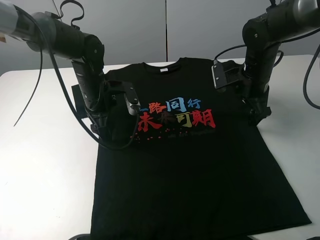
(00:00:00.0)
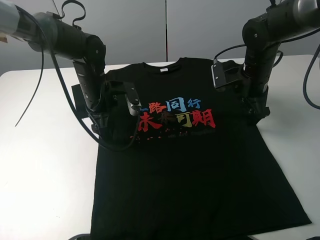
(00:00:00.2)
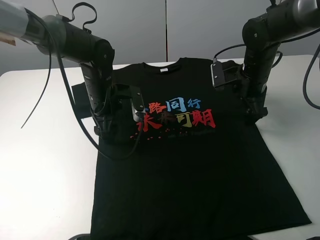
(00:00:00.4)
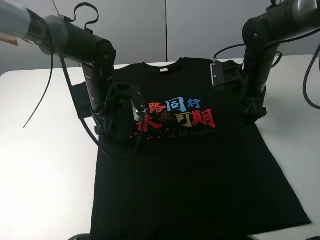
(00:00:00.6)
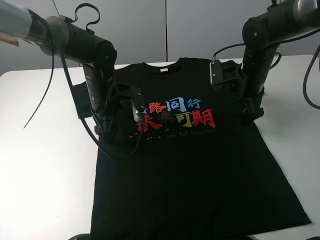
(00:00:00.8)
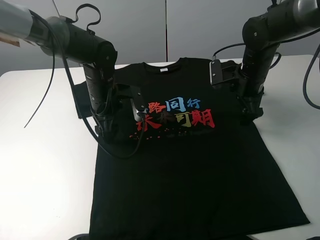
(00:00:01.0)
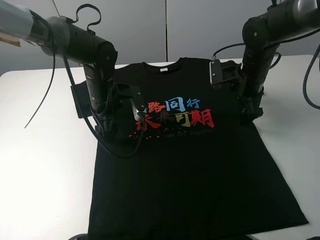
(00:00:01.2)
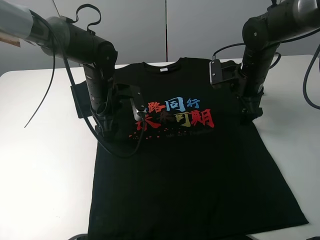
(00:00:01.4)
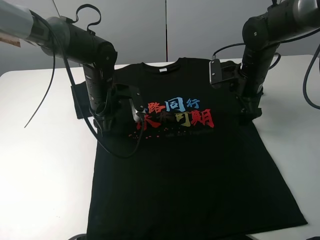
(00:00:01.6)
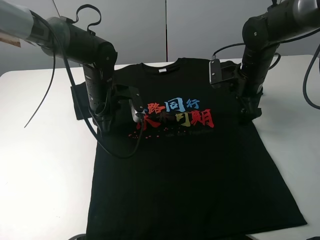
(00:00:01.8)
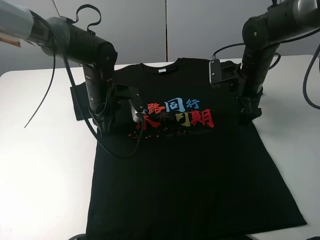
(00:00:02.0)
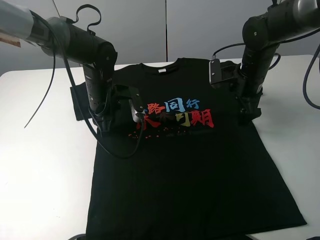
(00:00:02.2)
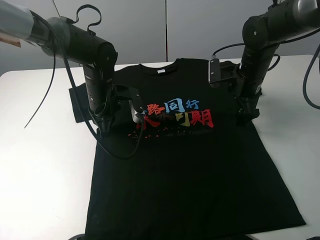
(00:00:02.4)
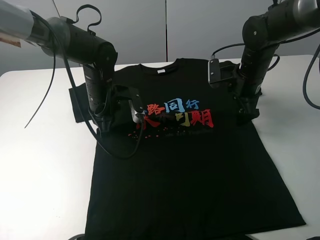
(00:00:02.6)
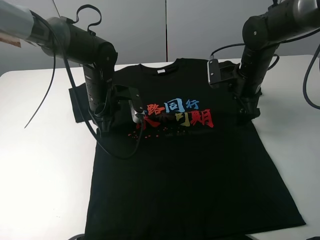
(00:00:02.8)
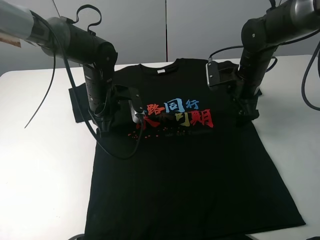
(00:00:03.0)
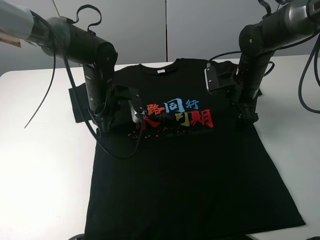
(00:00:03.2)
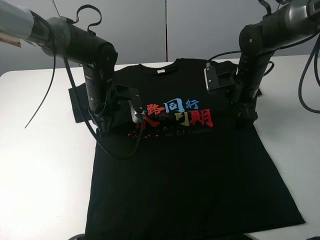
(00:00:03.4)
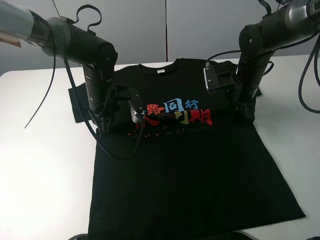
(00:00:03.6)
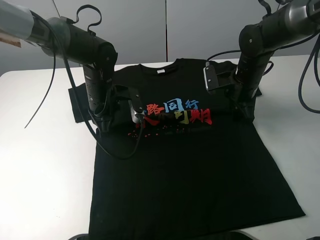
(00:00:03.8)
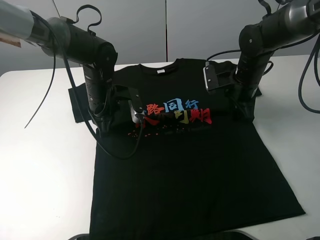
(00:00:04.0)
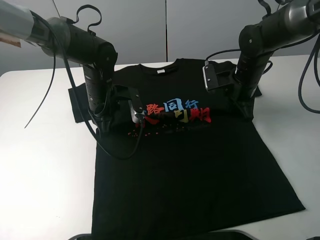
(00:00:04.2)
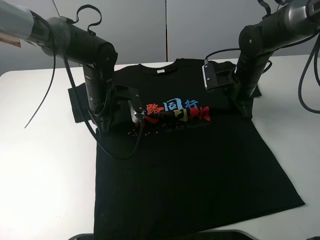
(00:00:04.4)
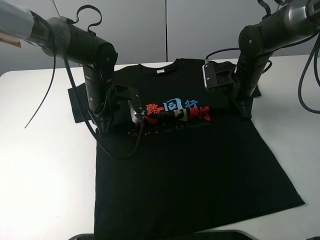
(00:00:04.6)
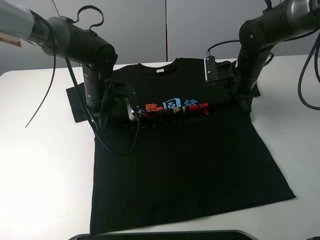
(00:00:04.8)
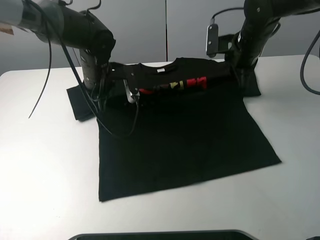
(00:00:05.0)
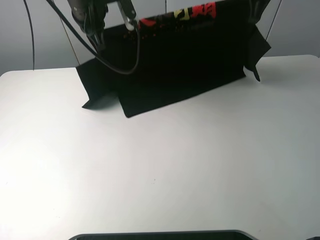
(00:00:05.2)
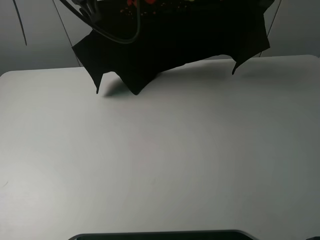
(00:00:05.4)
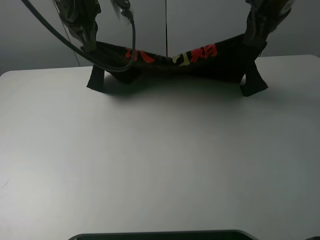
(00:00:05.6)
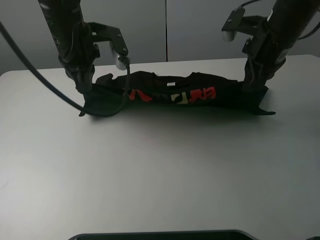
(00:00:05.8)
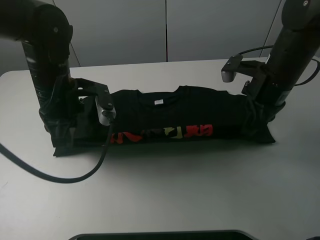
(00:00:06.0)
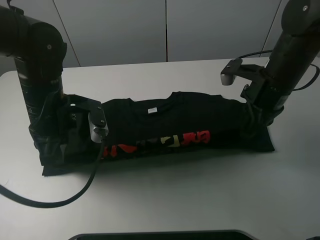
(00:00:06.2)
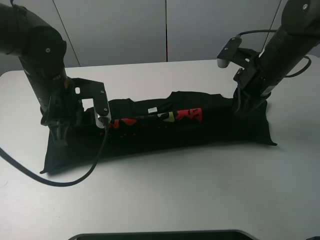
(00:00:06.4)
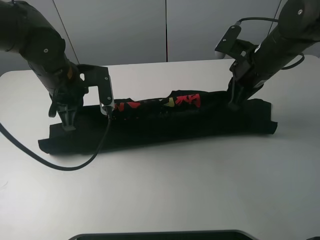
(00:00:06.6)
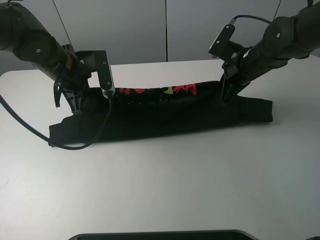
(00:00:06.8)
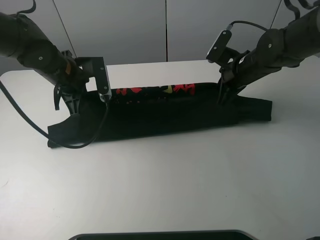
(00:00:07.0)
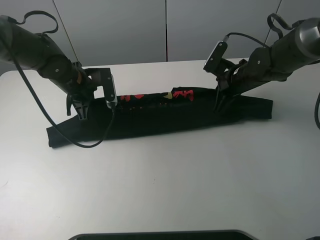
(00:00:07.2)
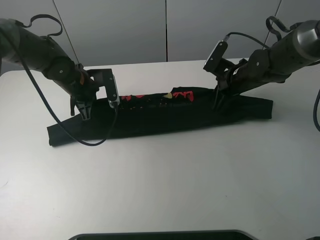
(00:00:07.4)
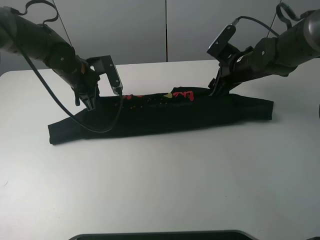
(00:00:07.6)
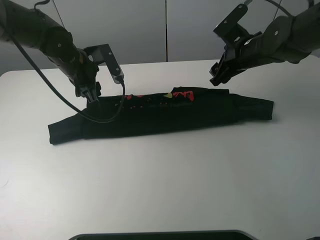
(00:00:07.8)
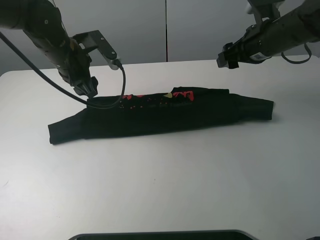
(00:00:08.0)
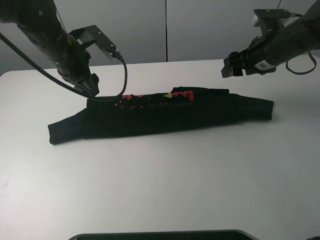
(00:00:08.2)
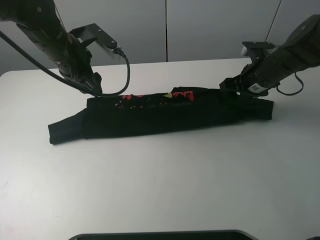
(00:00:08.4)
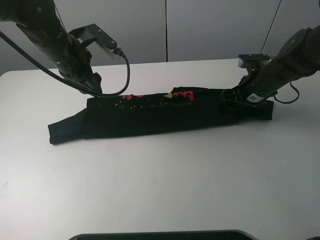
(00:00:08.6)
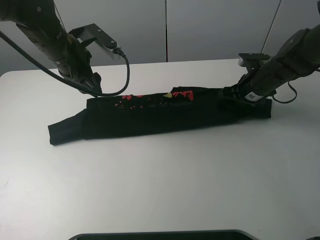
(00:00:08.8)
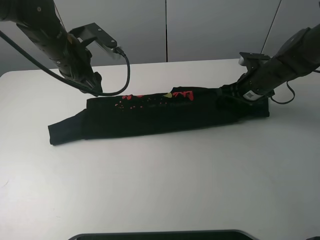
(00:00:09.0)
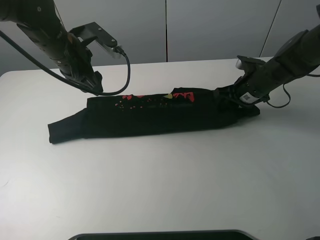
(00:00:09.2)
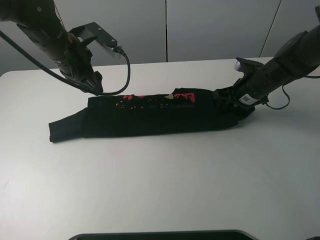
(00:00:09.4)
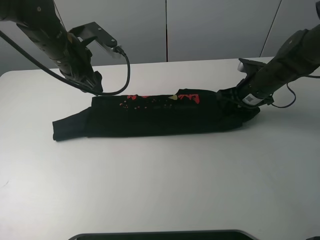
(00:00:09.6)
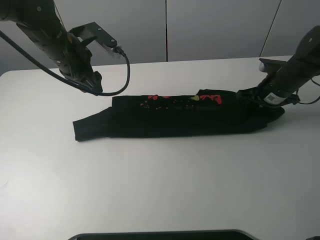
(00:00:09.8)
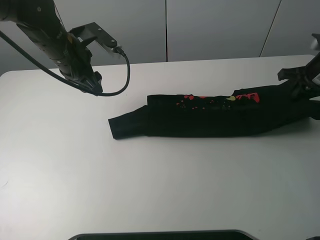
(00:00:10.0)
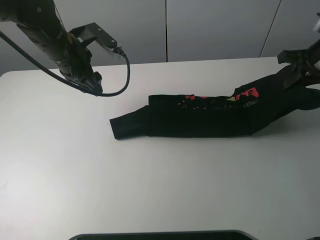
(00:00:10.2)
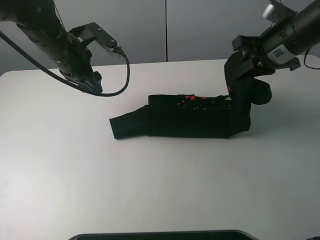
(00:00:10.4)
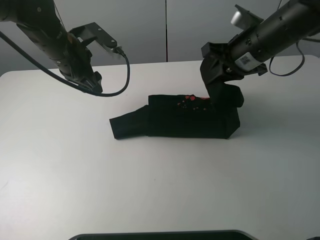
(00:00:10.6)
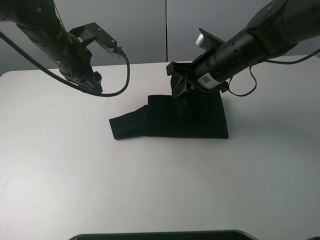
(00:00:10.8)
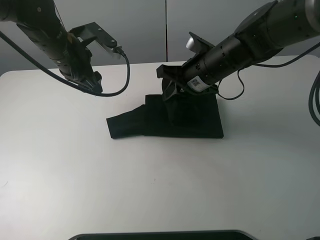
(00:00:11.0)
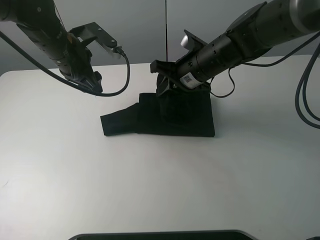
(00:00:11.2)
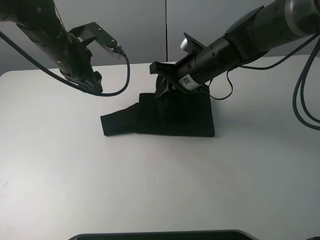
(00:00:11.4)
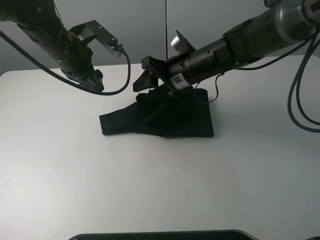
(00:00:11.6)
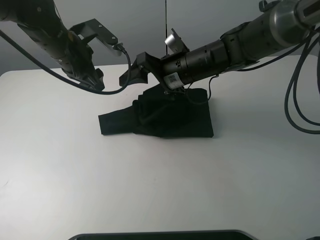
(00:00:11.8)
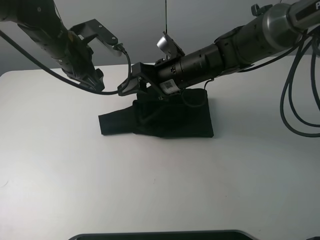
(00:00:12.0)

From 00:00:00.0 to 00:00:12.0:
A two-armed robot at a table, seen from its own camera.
Task of the whole recording: fold the clothes on the table.
Step, from 00:00:00.0 to 00:00:02.0: Lift the black T-shirt with the left gripper.
Step, from 00:00:02.2 to 00:00:07.8: Fold the black T-shirt downward with the left gripper.
Step, from 00:00:08.0 to 00:00:09.2: Grasp the black T-shirt with the right gripper.
From 00:00:00.0 to 00:00:01.6: The left gripper closes.
From 00:00:01.6 to 00:00:03.0: The left gripper closes up.
From 00:00:03.0 to 00:00:04.4: The right gripper closes up.
From 00:00:04.4 to 00:00:06.0: The left gripper heads upward, backward and to the left, covering roughly 15 cm, while the right gripper travels backward by approximately 10 cm, and reaches roughly 25 cm upward, then returns.
From 00:00:06.0 to 00:00:07.6: The right gripper heads forward and downward, covering about 10 cm, and opens. Meanwhile the left gripper moves forward, some 10 cm, and opens its fingers.
From 00:00:07.6 to 00:00:09.0: The left gripper goes about 5 cm upward, and opens its fingers. Meanwhile the right gripper ends up about 5 cm from where it was.
From 00:00:09.0 to 00:00:10.4: The right gripper moves upward, about 15 cm, and closes.
From 00:00:10.4 to 00:00:12.0: The right gripper heads to the left and downward, covering roughly 20 cm, and opens up.

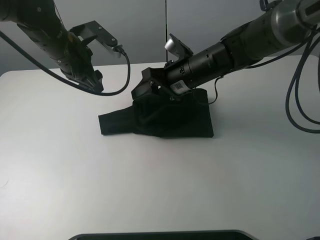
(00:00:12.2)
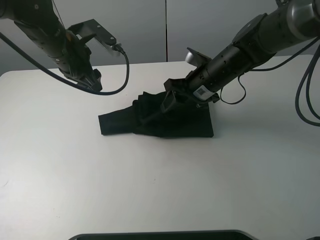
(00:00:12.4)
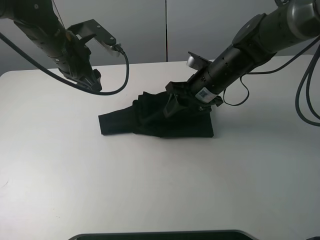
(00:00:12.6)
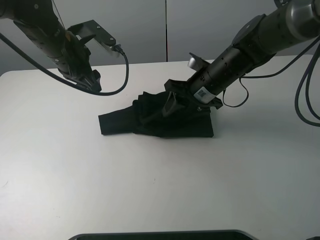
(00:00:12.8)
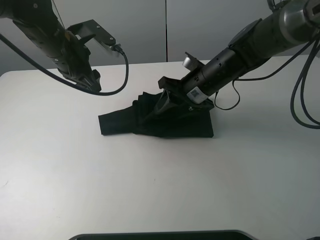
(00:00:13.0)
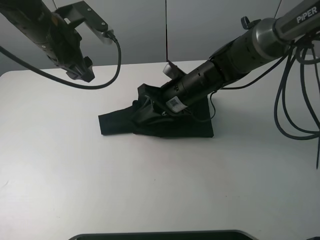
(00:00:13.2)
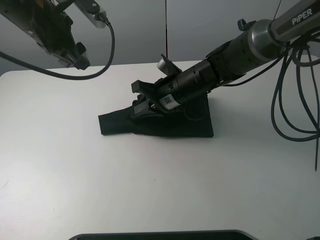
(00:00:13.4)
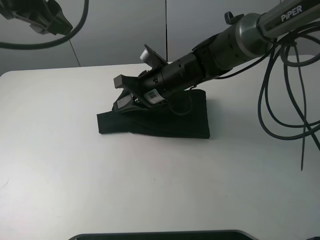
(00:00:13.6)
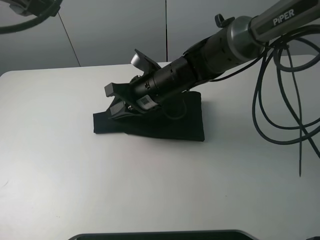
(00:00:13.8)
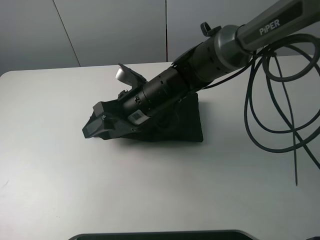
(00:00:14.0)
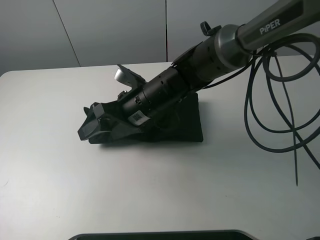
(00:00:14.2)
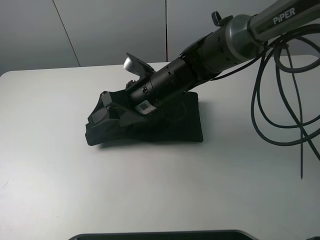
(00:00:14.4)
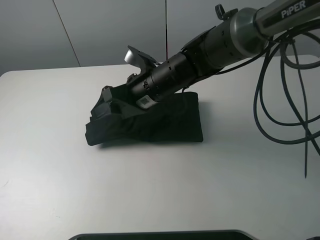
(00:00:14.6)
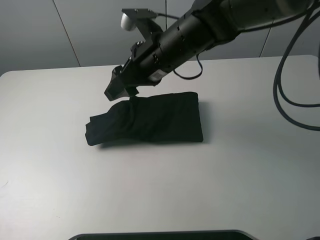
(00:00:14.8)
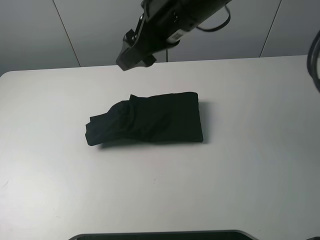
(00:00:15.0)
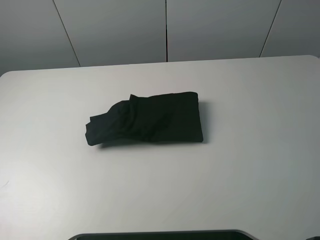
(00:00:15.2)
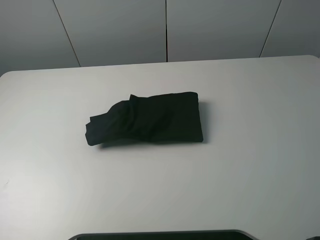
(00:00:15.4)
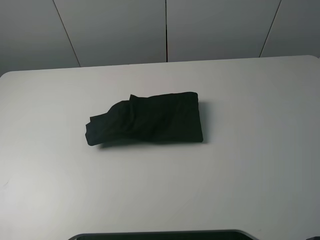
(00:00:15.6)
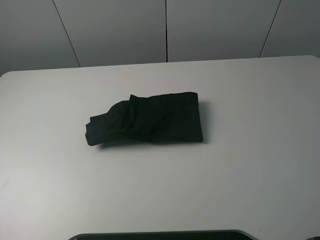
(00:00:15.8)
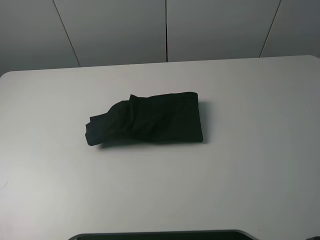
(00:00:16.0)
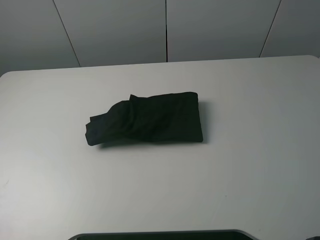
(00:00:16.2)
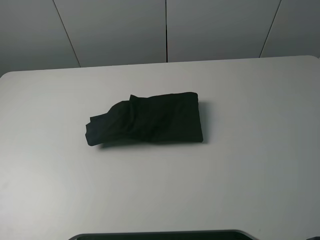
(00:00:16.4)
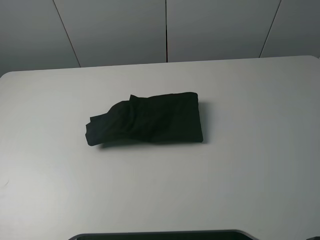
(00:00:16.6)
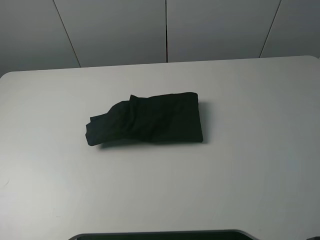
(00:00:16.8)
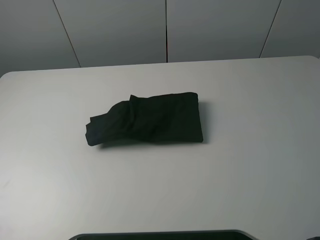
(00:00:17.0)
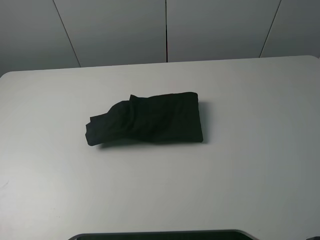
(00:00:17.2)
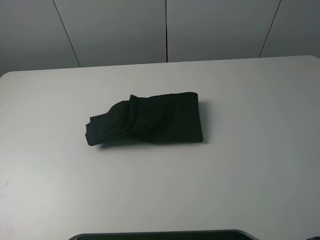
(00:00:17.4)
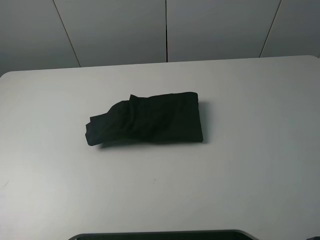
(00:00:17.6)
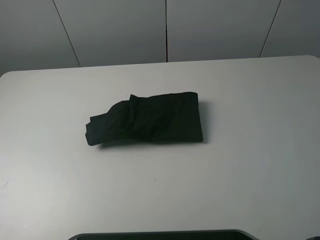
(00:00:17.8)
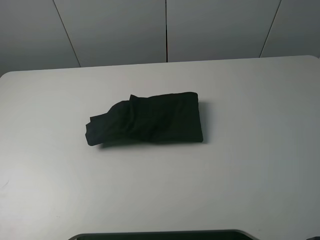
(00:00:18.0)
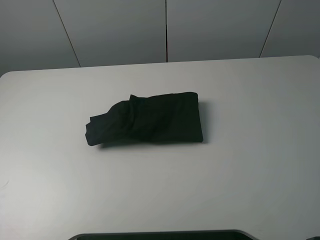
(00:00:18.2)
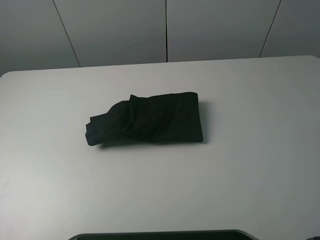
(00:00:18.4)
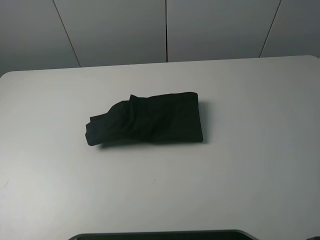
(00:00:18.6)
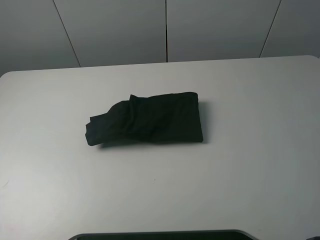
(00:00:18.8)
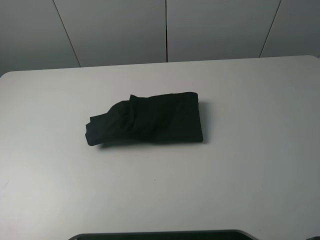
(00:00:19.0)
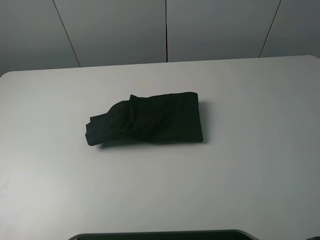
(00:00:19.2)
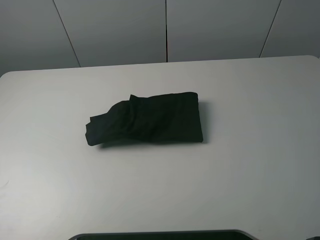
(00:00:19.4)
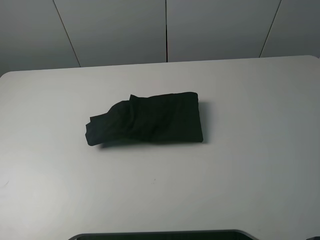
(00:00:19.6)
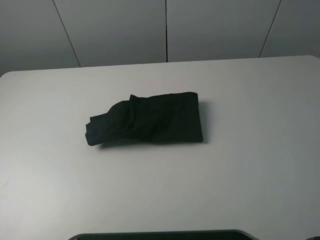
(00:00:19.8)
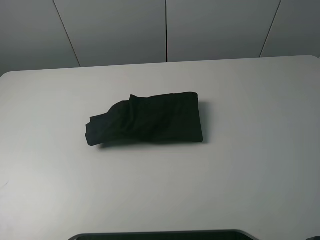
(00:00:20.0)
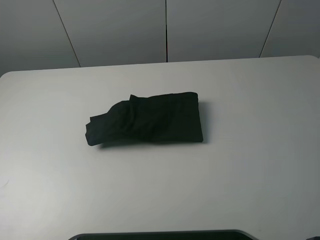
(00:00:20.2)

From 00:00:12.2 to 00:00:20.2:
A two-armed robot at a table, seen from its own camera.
Task of the whole recording: fold the clothes on the table.
Step, from 00:00:12.2 to 00:00:14.6: Fold the black T-shirt from right to left with right gripper.
From 00:00:12.2 to 00:00:13.8: The left gripper shifts some 20 cm upward and backward. The right gripper goes some 10 cm to the left, and closes up.
From 00:00:13.8 to 00:00:15.4: The left gripper heads backward, to the left and upward, covering about 30 cm. The right gripper heads upward and to the right, covering some 50 cm, and opens.
From 00:00:18.6 to 00:00:20.2: Both grippers stay put.
